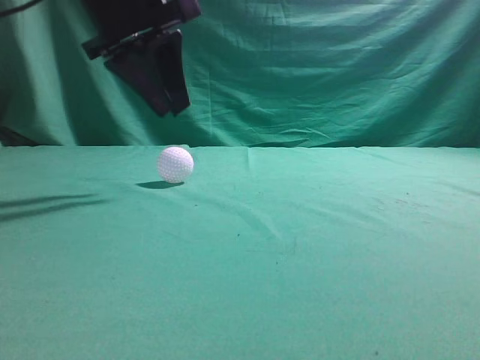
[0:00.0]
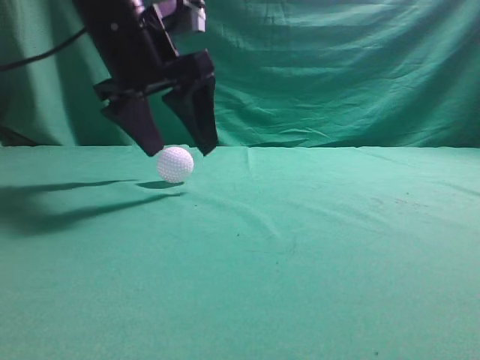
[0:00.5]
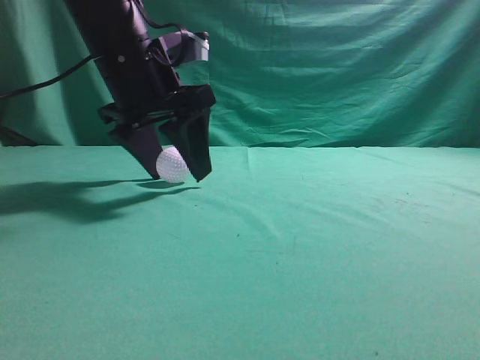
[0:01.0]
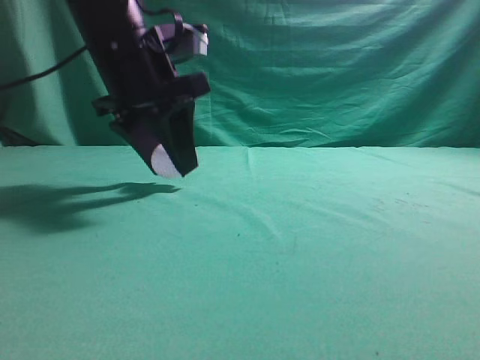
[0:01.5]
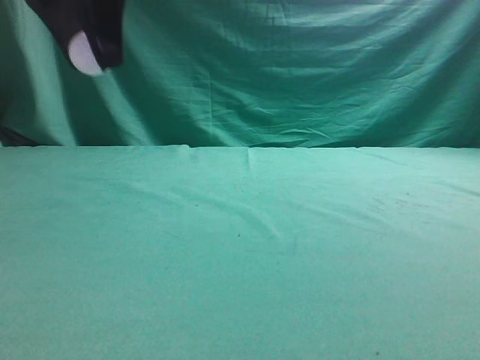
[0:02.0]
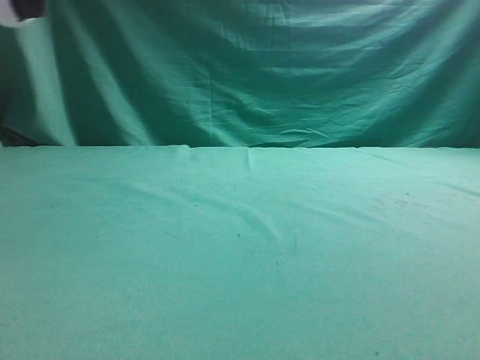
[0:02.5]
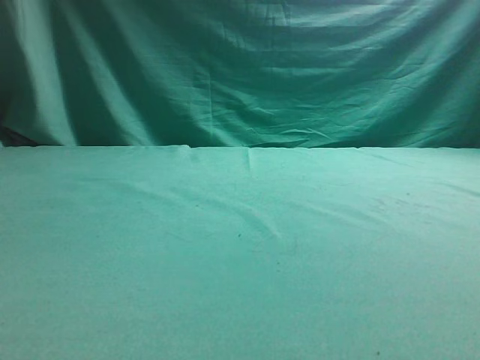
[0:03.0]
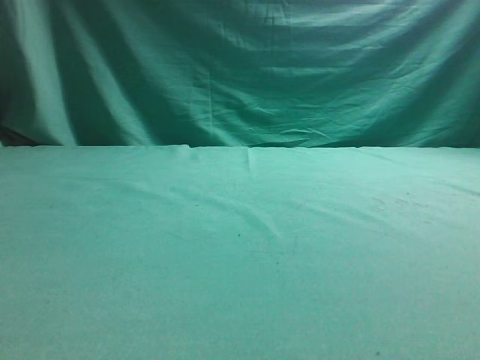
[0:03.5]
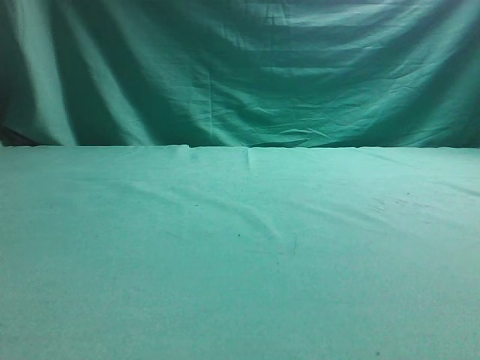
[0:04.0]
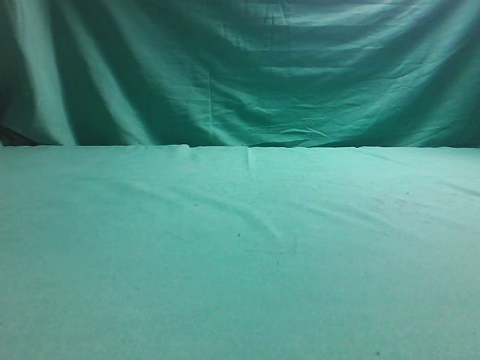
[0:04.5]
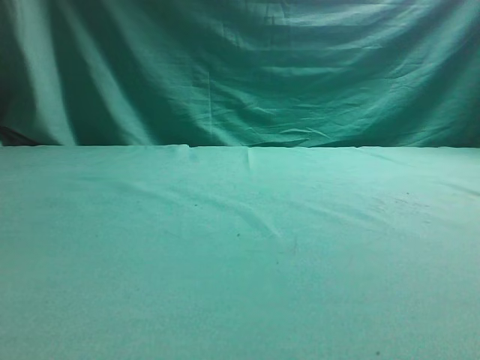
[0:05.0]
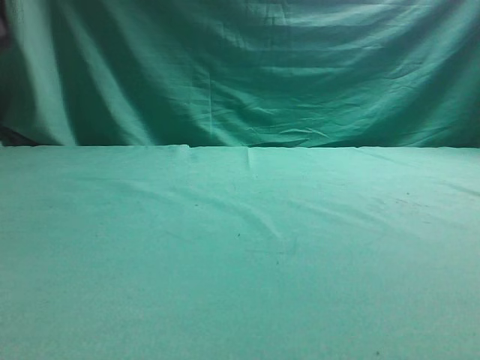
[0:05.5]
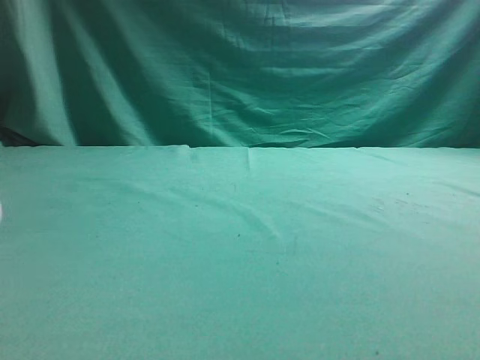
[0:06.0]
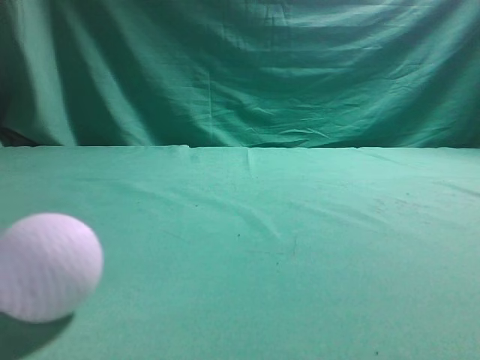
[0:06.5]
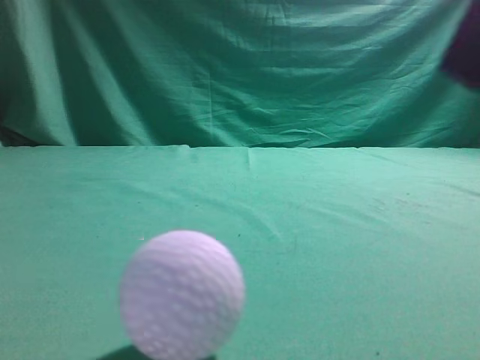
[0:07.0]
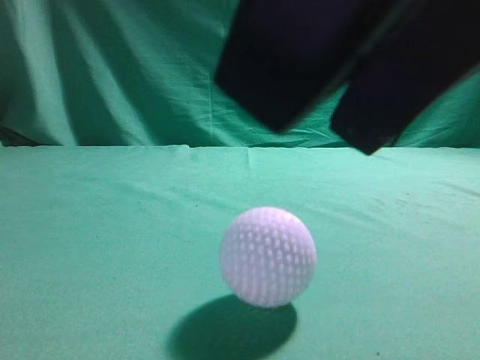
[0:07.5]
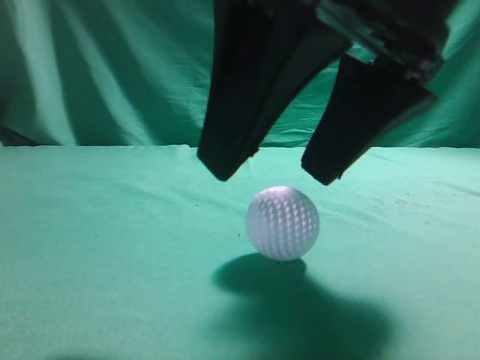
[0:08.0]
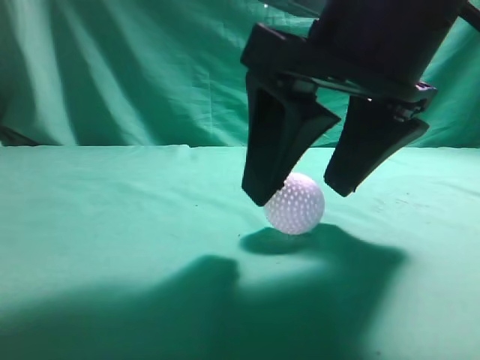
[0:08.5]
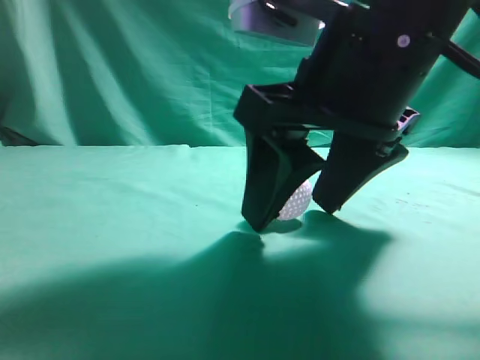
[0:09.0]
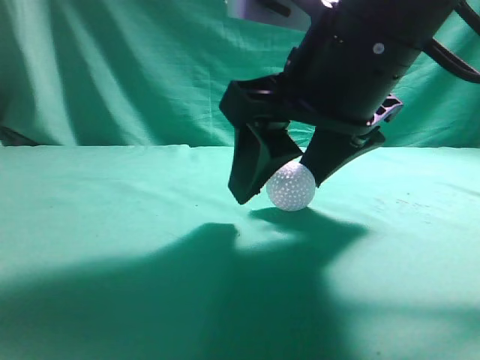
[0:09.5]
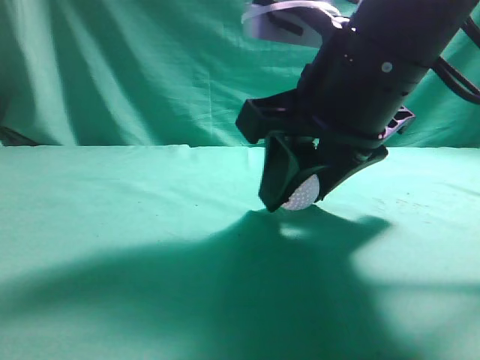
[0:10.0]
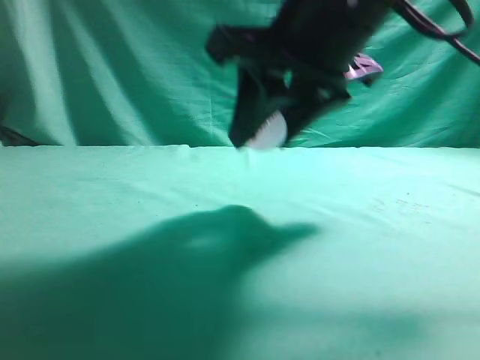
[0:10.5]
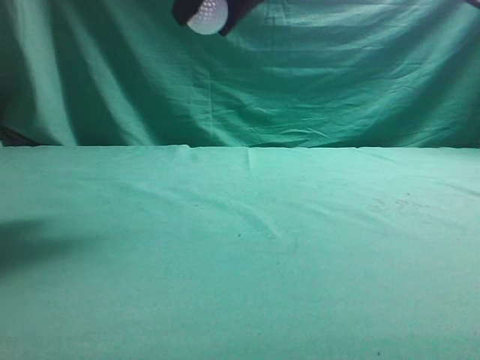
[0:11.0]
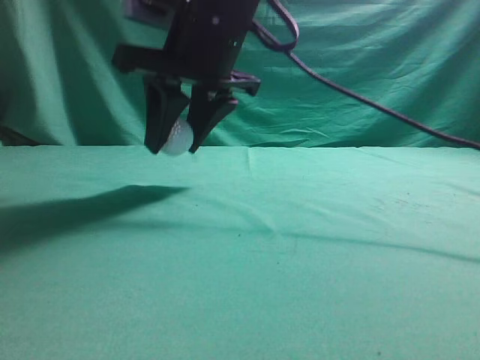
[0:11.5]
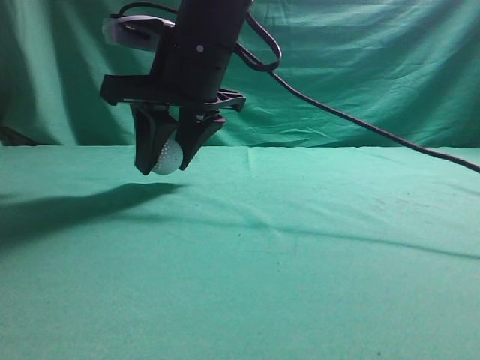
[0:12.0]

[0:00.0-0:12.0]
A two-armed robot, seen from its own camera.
Task of the whole recording: pick up the ball and place it on the plate, then pick up the ball from the plate and put it in the center of the table.
Step, 0:02.0 to 0:05.5: Place the sphere on the white object.
Step, 0:06.0 to 0:10.0: Grab the rolling spherical object.
0:00.0 to 0:02.0: The left gripper ends up about 5 cm from where it was, and opens, then closes once more.
0:02.0 to 0:04.0: The left gripper heads to the left, covering about 20 cm.
0:06.0 to 0:08.0: The right gripper shifts approximately 20 cm to the left and downward, and opens up, while the left gripper is displaced backward by roughly 25 cm.
0:08.0 to 0:10.0: The right gripper moves forward, some 10 cm, and closes up.
0:10.0 to 0:12.0: The right gripper is displaced to the left and forward by some 15 cm, and reaches approximately 15 cm upward, then returns.

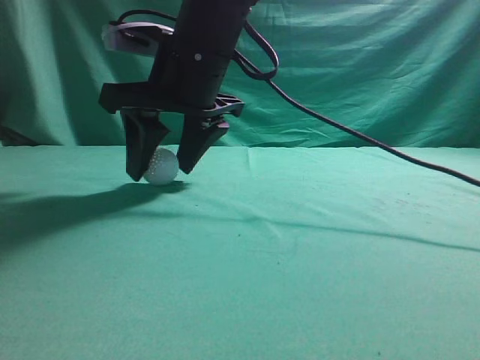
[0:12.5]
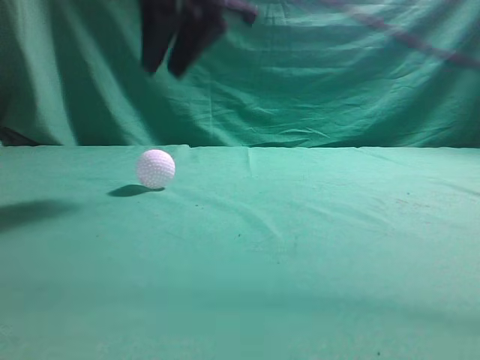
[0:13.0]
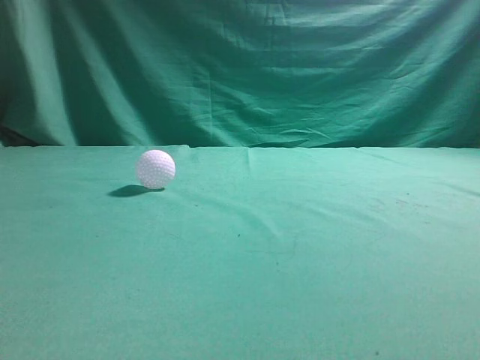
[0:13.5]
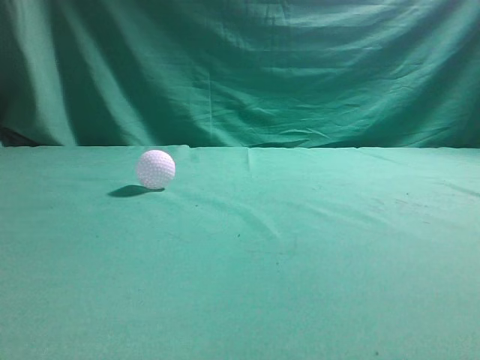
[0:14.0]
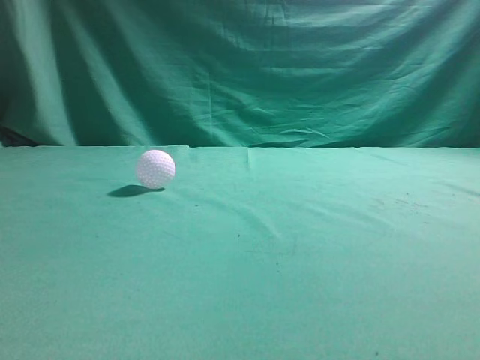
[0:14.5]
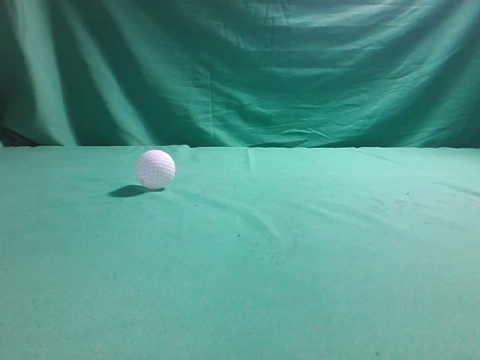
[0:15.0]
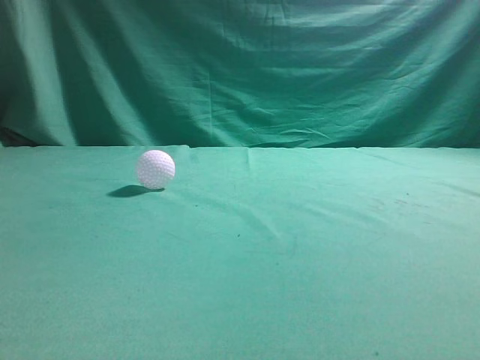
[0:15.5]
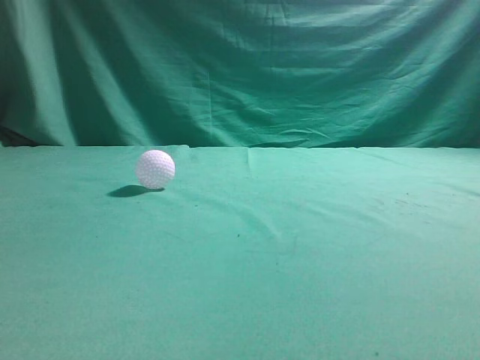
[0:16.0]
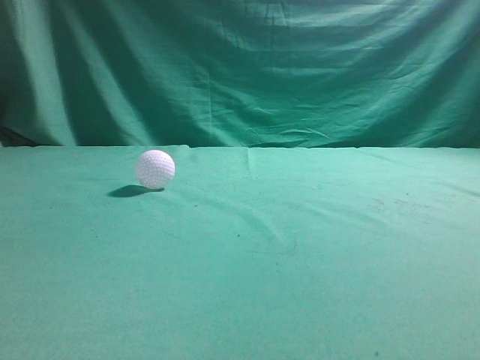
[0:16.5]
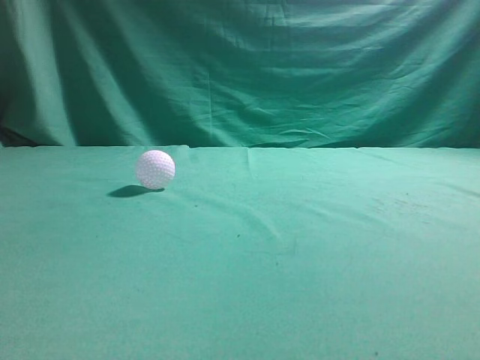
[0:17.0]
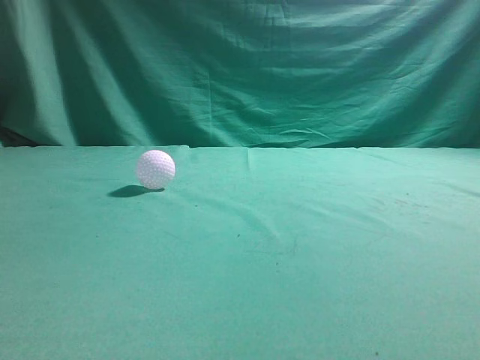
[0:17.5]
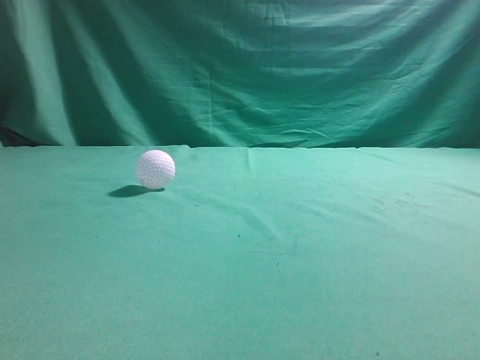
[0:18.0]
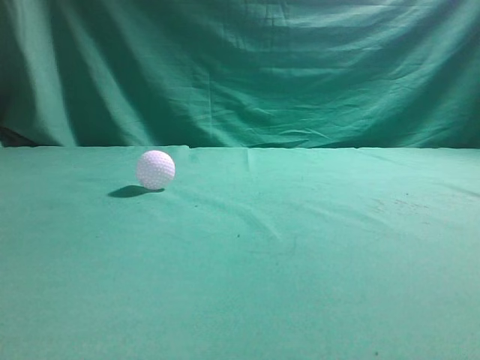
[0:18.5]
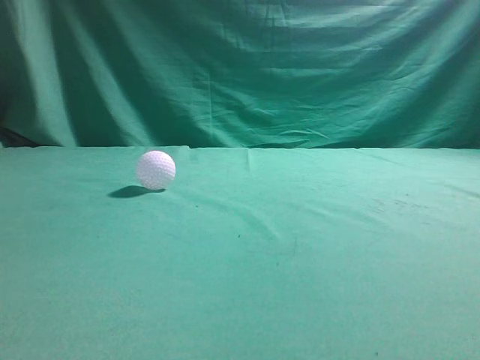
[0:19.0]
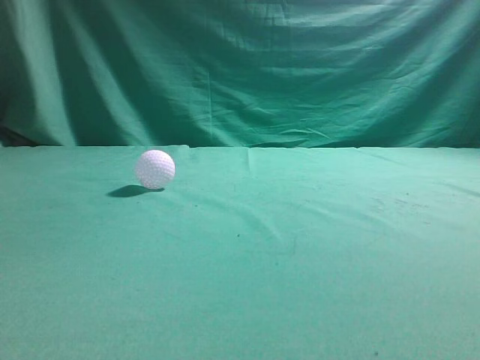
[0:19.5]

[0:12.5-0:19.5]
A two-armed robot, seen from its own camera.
Task of the whole recording: pick up the ball and place it on the plate, then pick up the ball from the plate and put it in the center of the table.
0:12.5 to 0:14.5: The right gripper moves backward, to the right and upward, roughly 40 cm, and closes up.
